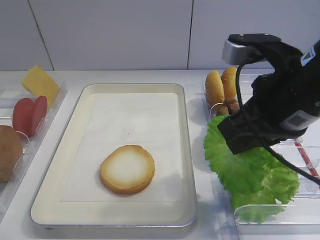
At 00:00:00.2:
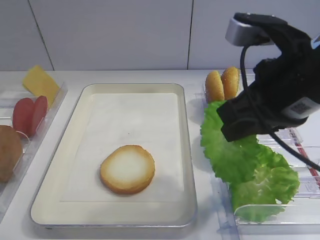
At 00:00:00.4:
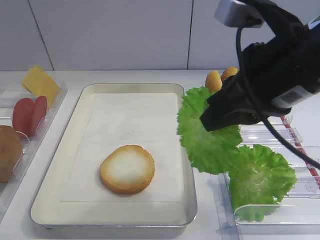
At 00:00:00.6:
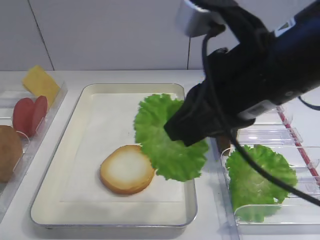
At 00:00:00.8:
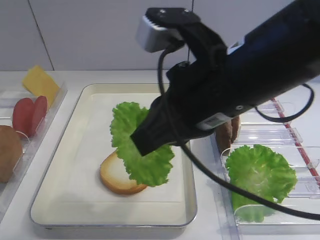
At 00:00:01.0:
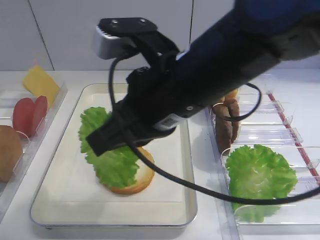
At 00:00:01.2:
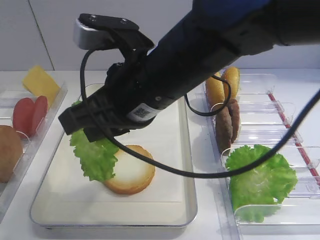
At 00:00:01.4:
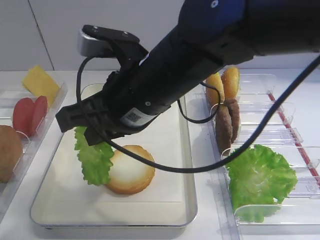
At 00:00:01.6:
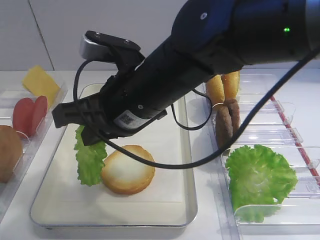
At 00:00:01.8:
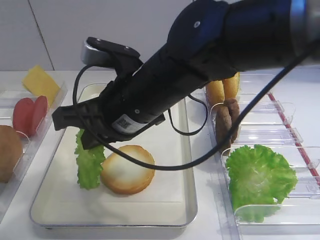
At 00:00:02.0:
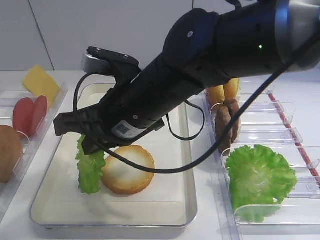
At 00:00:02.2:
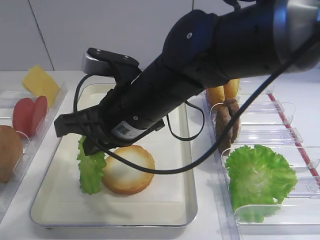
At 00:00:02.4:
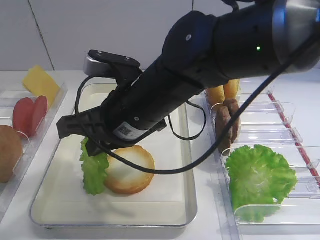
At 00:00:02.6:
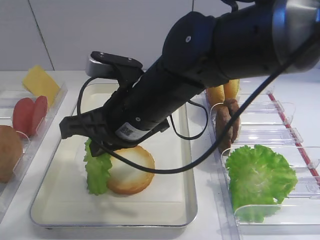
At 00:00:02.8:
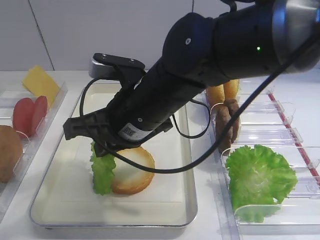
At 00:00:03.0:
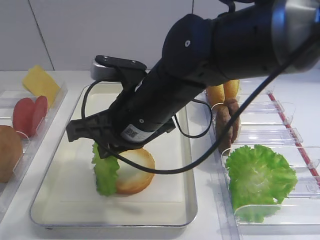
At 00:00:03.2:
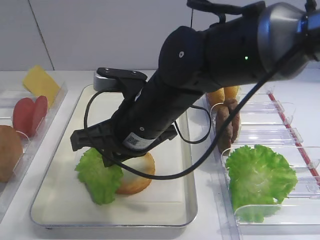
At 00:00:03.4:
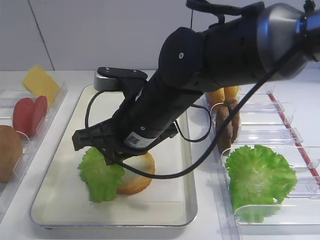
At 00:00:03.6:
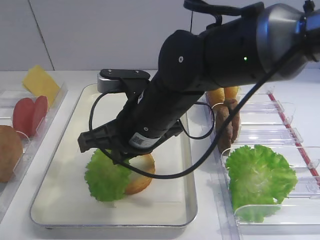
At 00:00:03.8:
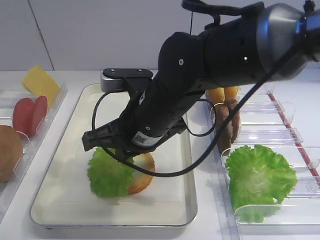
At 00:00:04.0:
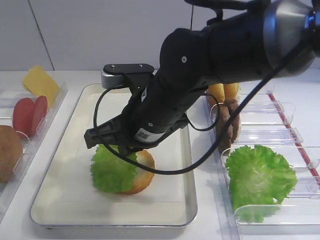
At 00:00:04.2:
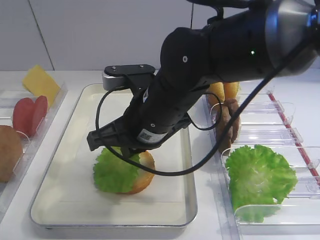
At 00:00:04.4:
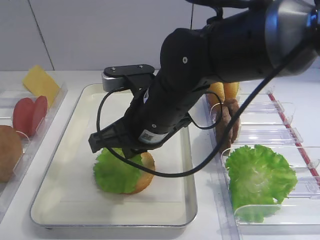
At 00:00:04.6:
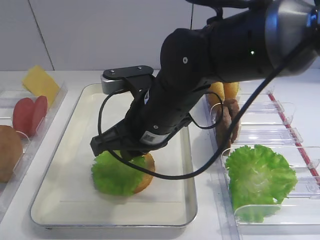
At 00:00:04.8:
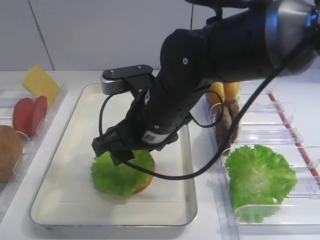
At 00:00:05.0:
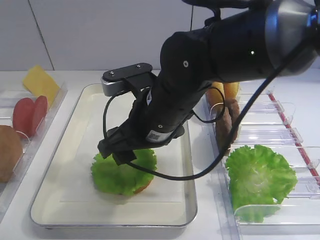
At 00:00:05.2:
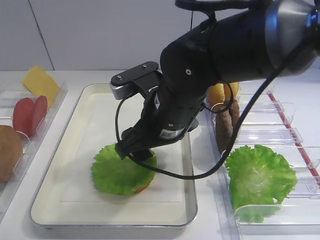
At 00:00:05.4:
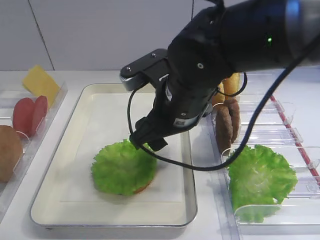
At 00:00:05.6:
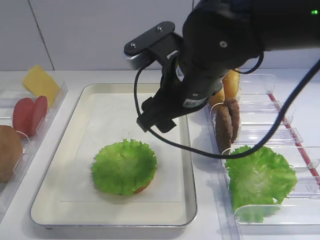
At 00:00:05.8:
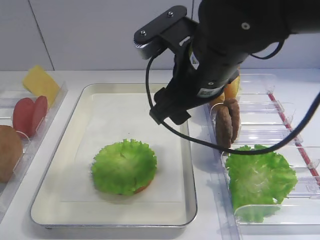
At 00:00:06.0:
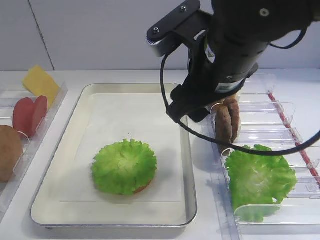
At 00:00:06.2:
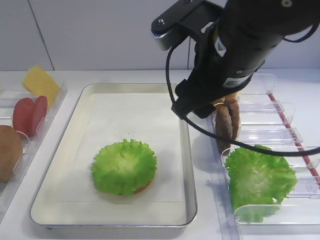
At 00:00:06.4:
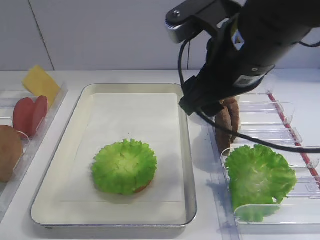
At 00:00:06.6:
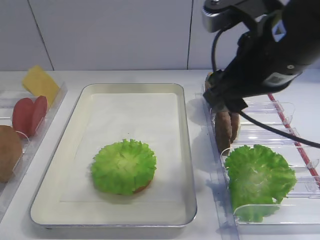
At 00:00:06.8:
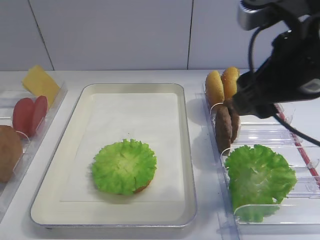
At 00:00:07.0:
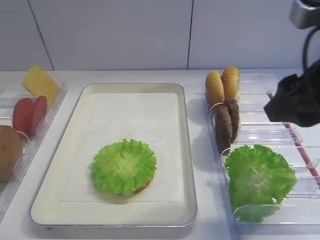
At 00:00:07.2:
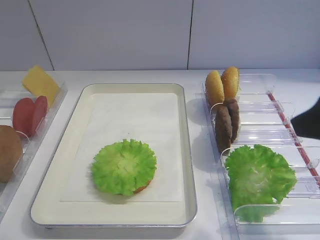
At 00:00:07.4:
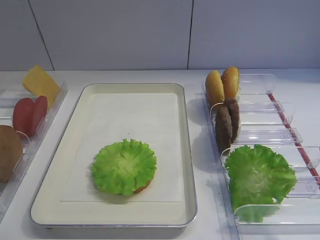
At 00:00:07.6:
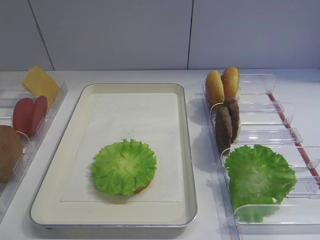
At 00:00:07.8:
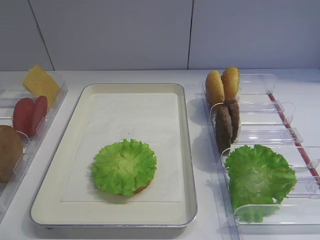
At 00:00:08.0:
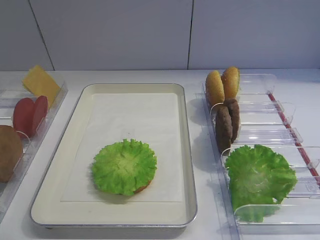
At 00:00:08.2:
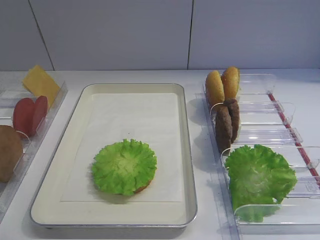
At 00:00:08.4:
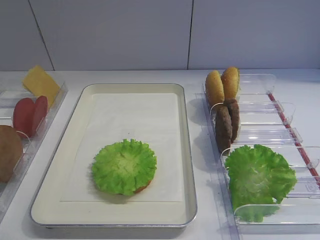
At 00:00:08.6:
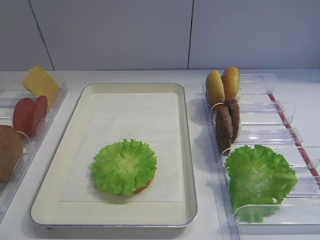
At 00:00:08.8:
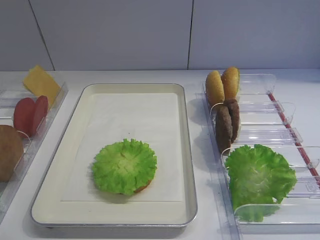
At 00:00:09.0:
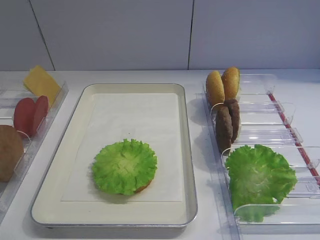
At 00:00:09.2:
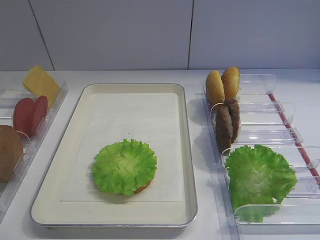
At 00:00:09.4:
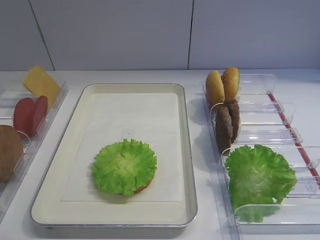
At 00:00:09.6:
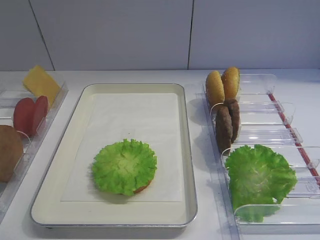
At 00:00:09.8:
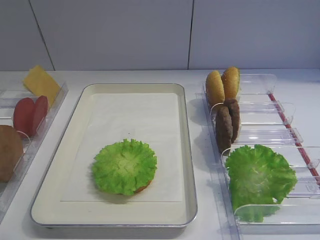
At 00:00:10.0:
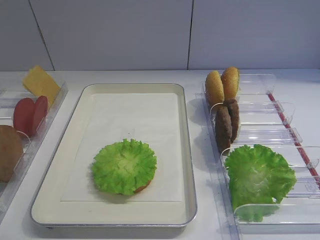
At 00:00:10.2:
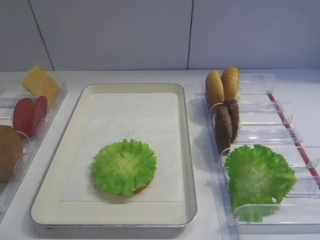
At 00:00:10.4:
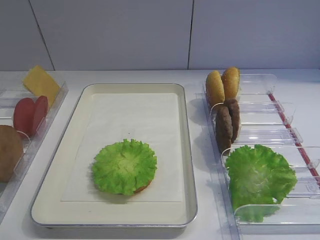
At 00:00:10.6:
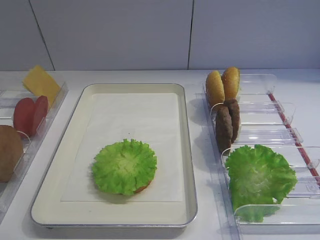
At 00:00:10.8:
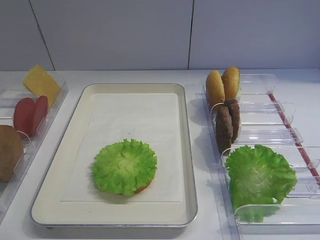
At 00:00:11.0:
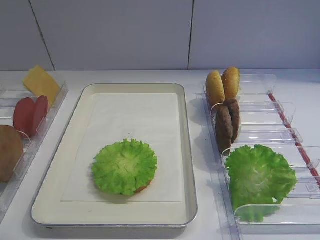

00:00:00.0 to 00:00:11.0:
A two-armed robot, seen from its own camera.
Step, 00:00:00.2 to 00:00:05.6: Place the lettuce leaf on the bread slice with the right gripper.
00:00:00.0 to 00:00:01.6: The right gripper moves to the left, roughly 15 cm.
00:00:03.2 to 00:00:04.8: The right gripper opens.
00:00:04.8 to 00:00:06.2: The right gripper travels upward and to the right by some 10 cm.
00:00:06.2 to 00:00:07.8: The right gripper is displaced backward and to the right by about 25 cm.
00:00:09.4 to 00:00:11.0: Both grippers stay put.

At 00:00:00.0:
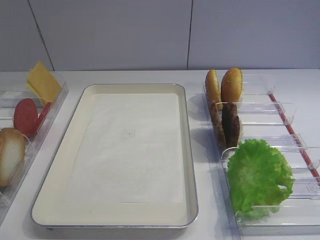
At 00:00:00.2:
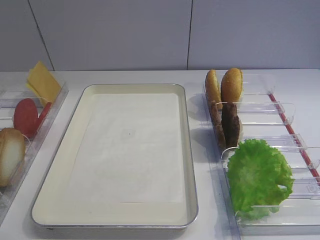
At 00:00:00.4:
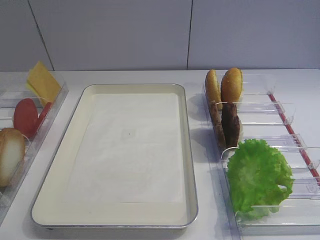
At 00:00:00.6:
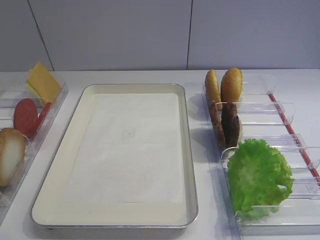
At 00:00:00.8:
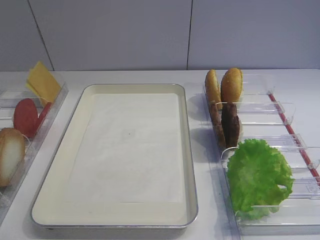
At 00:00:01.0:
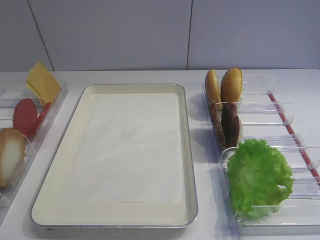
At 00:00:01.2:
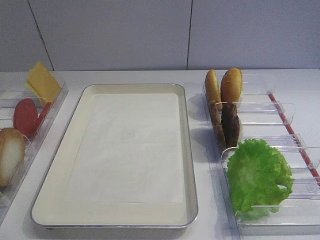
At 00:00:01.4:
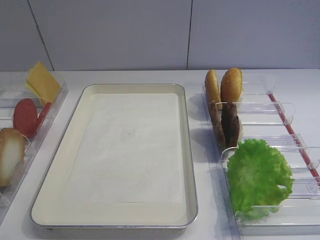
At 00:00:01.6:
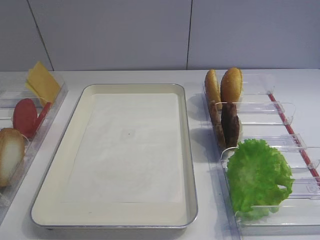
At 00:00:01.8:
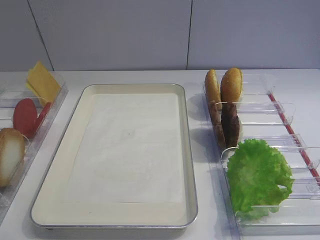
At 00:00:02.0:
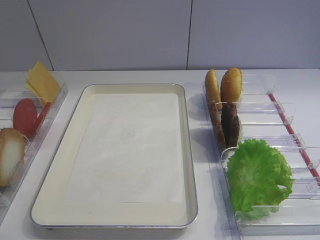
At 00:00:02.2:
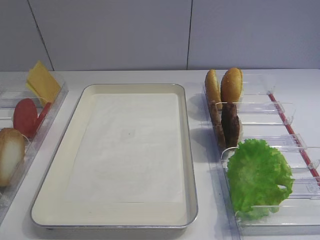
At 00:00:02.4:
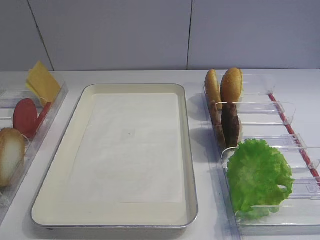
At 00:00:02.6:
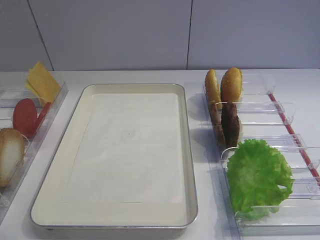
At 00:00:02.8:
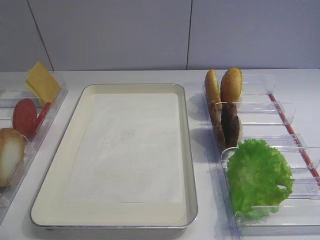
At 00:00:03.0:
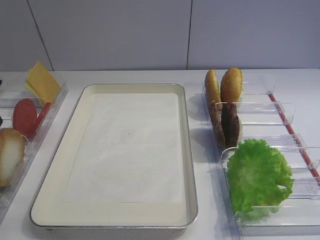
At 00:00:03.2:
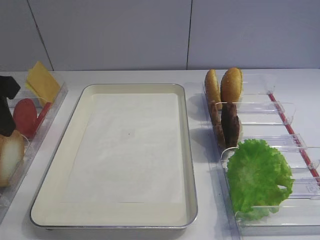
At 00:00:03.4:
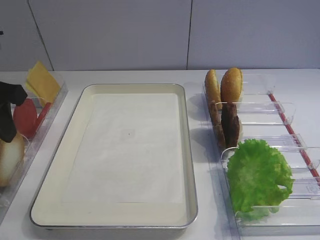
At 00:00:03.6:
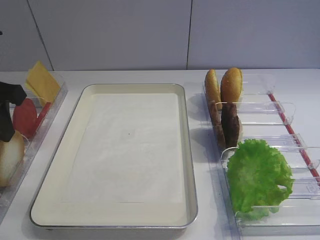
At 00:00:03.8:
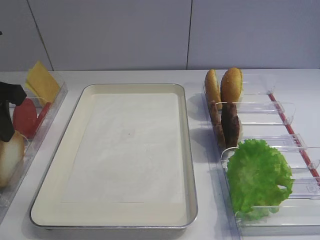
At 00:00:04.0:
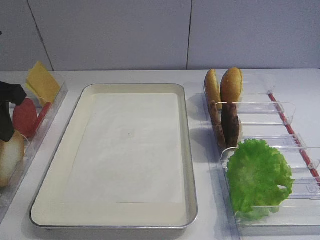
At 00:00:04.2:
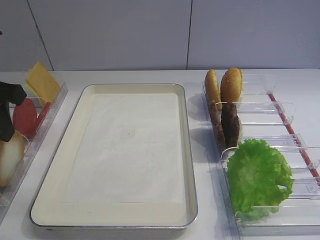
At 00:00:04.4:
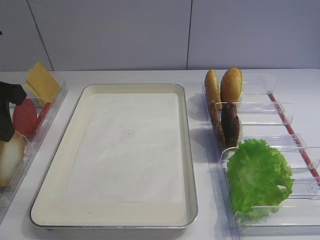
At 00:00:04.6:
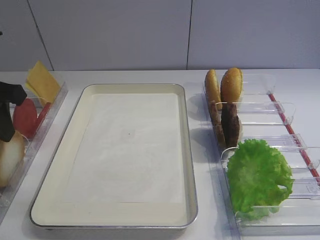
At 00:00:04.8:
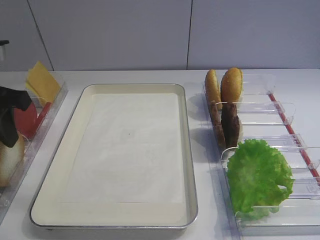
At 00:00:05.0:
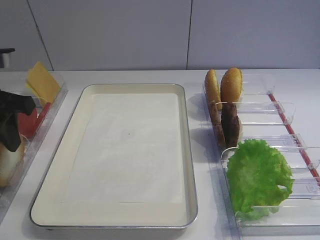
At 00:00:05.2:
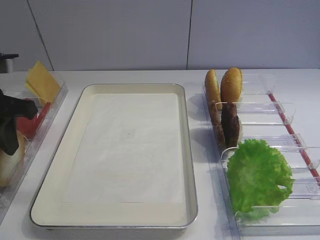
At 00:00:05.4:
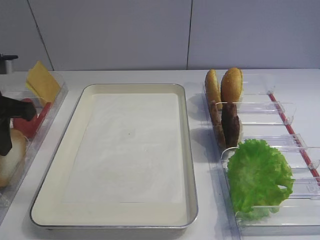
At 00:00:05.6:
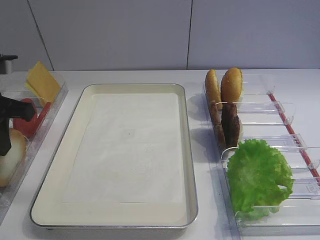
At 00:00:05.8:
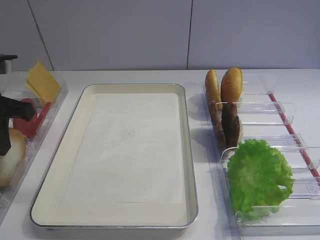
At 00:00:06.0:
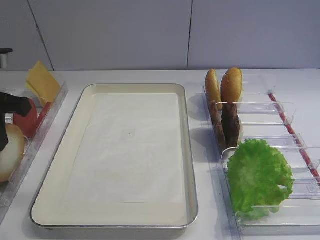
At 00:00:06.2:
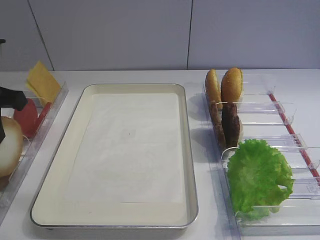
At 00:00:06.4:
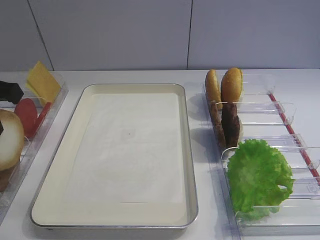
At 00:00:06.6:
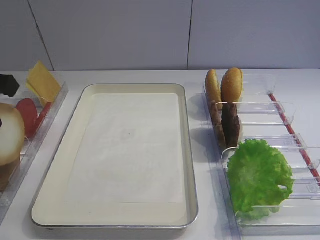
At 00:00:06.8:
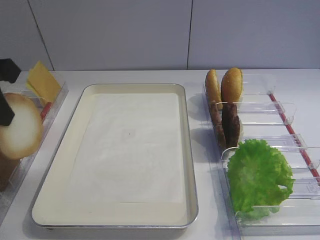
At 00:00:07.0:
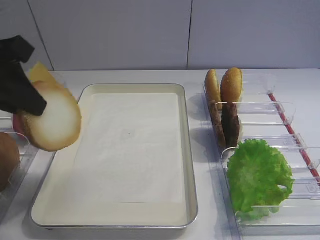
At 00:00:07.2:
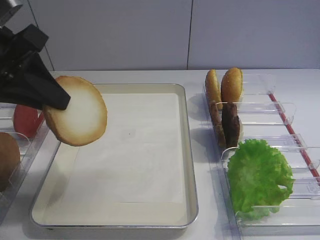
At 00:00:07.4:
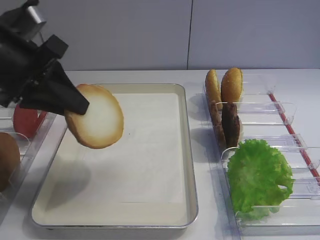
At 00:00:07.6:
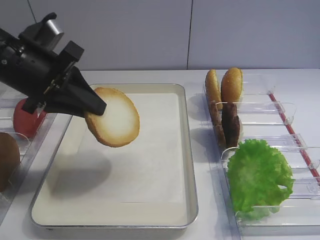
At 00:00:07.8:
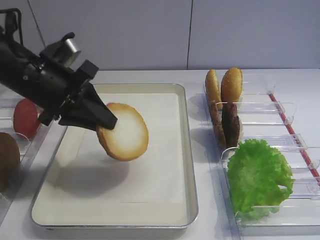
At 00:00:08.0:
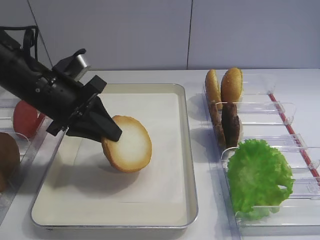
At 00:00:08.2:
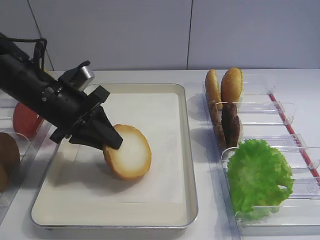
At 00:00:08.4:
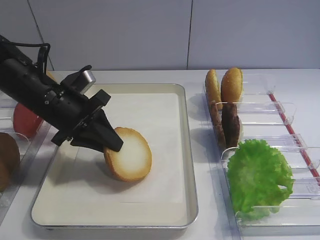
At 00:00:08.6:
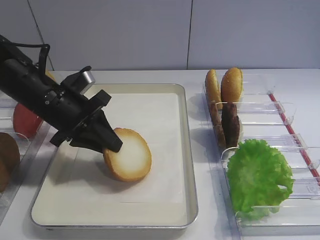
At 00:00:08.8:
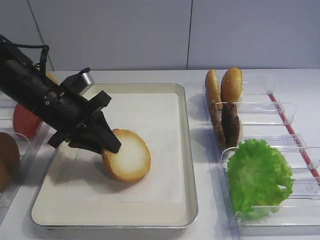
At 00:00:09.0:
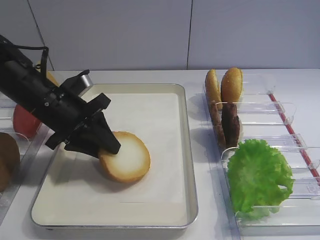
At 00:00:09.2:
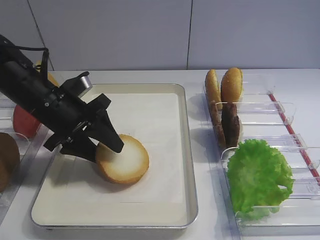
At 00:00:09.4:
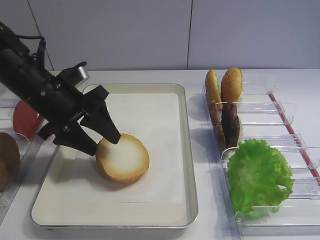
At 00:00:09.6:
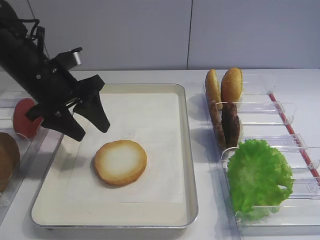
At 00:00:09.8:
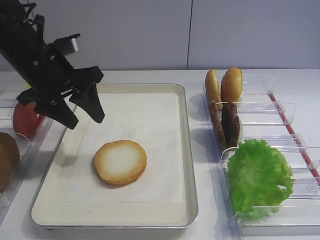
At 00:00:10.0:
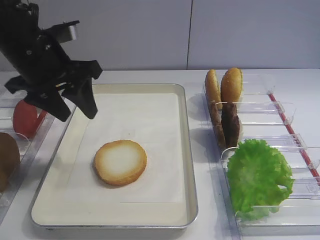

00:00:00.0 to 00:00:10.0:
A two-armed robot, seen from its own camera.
Step, 00:00:00.0 to 00:00:06.6: Pick up the bread slice with the left gripper.
Step, 00:00:06.8 to 00:00:09.4: Place the bread slice on the tray with the left gripper.
00:00:02.8 to 00:00:04.2: The left gripper ends up roughly 5 cm from where it was.
00:00:04.2 to 00:00:05.8: The left gripper closes.
00:00:05.8 to 00:00:07.2: The left gripper moves upward, approximately 5 cm.
00:00:07.2 to 00:00:08.6: The left gripper travels downward and forward by about 15 cm.
00:00:08.6 to 00:00:10.0: The left gripper travels upward by roughly 10 cm, and opens.

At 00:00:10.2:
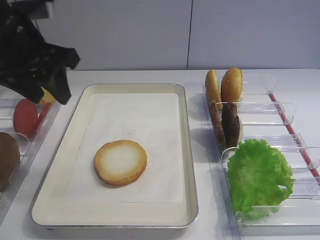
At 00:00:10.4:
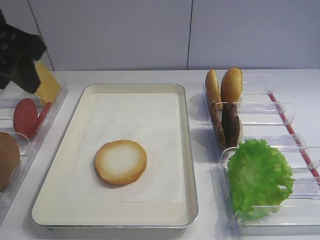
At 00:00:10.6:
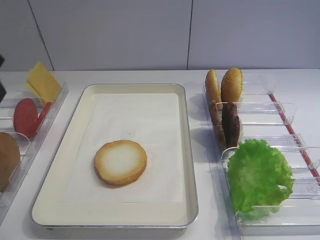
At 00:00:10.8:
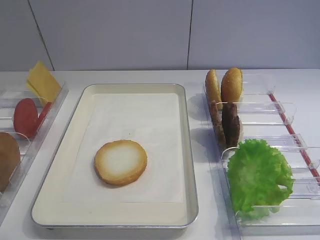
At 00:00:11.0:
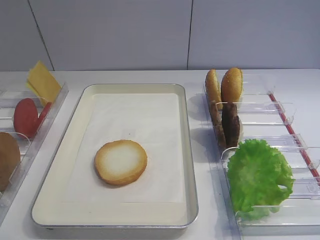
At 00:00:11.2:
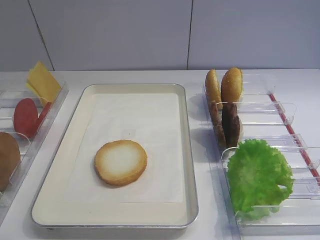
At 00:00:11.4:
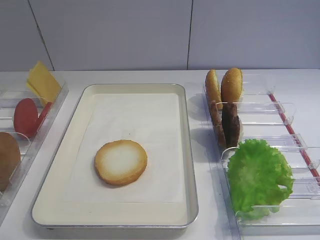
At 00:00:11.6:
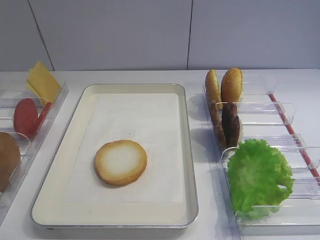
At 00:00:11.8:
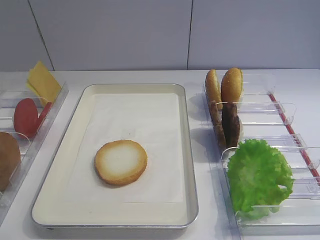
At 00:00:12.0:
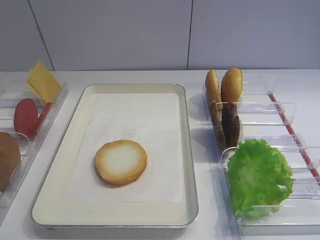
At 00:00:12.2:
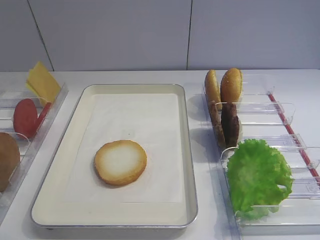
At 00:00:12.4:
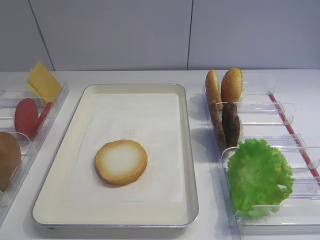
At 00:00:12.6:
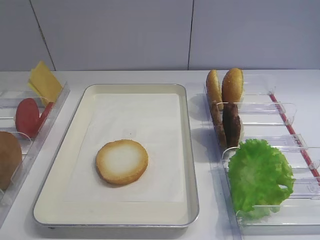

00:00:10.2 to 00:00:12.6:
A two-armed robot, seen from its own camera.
00:00:10.2 to 00:00:11.4: The left gripper is displaced backward by some 25 cm.
00:00:11.4 to 00:00:12.6: The left gripper shifts approximately 10 cm downward and backward.
